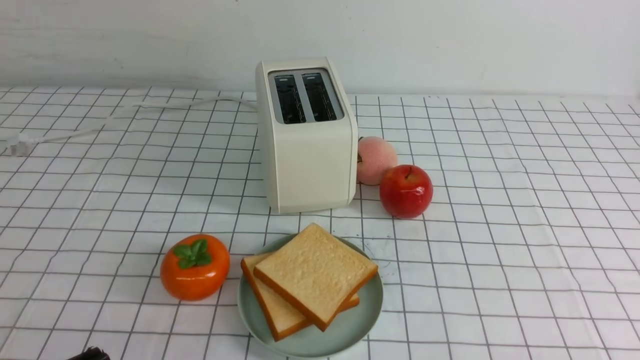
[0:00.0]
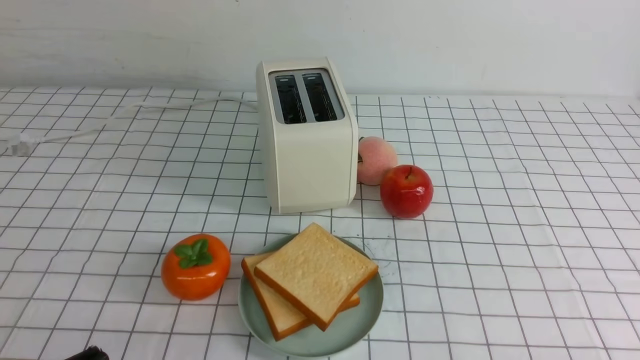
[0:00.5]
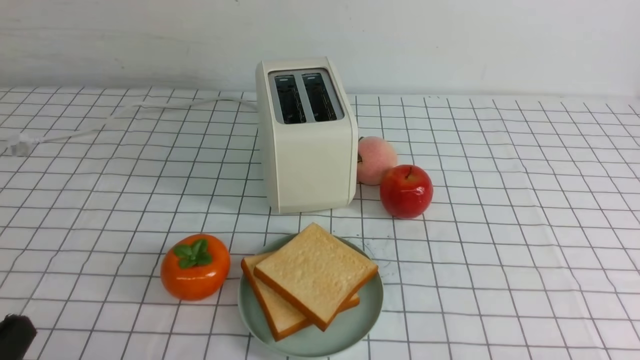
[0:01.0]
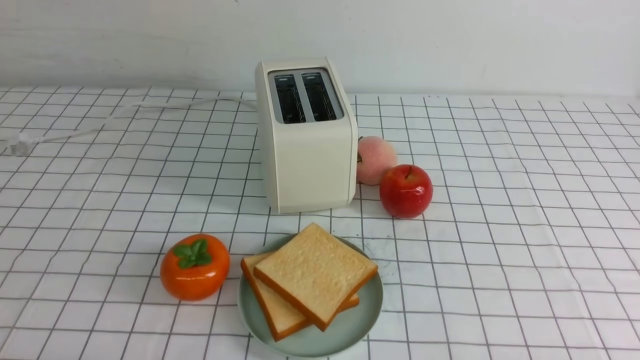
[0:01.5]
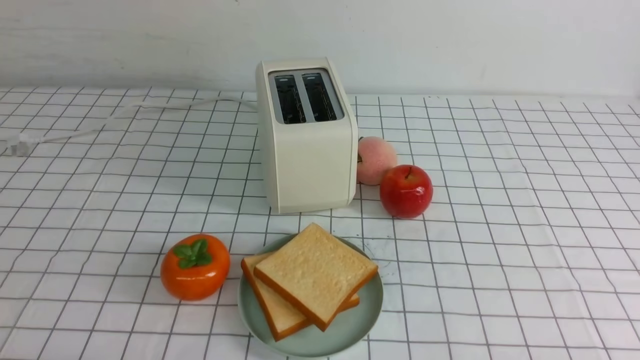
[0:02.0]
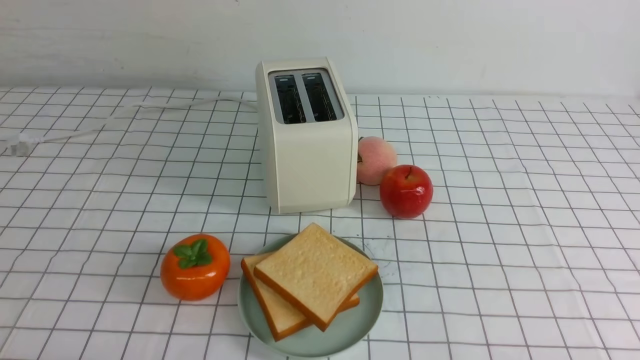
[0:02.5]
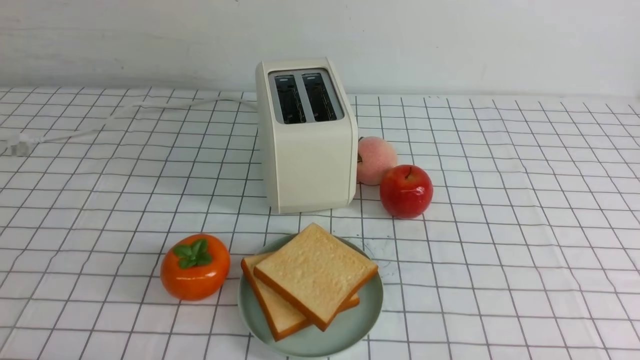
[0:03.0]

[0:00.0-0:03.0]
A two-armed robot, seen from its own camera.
Task of the whole recording: take toasted bread from bread machine on white checkered table place on plate.
0:01.5 to 0:03.0: Both grippers stay put.

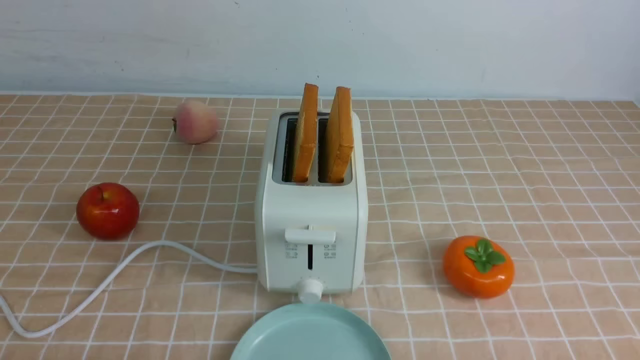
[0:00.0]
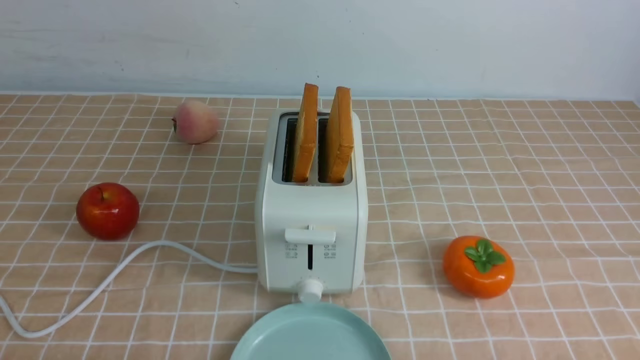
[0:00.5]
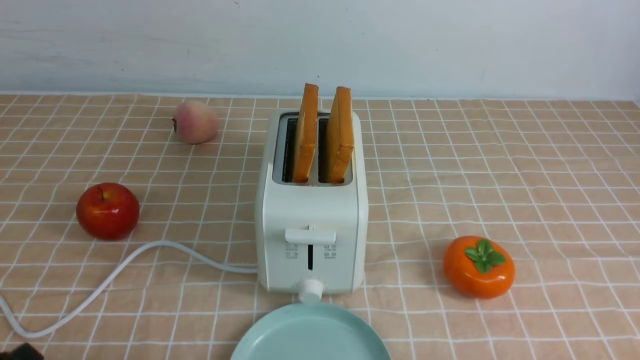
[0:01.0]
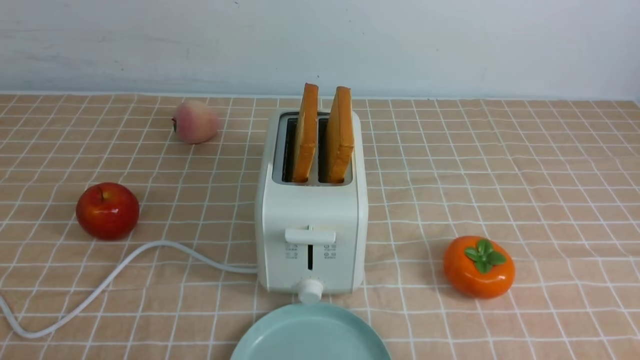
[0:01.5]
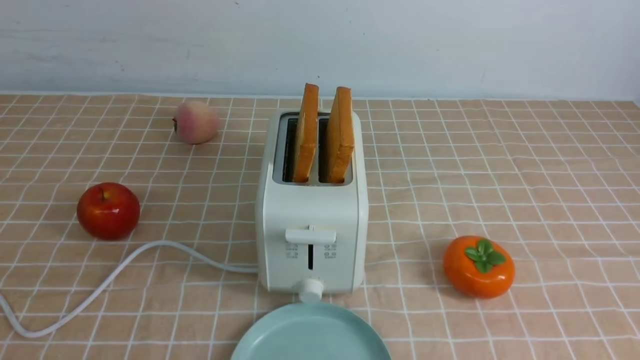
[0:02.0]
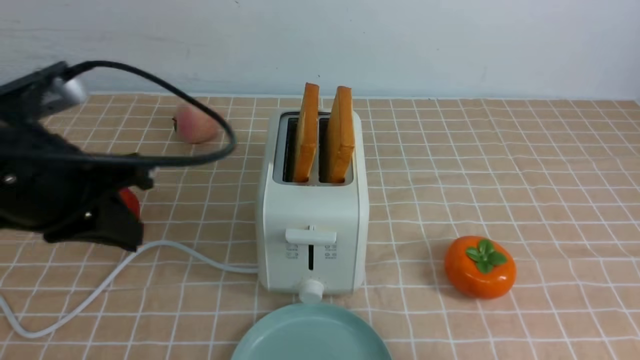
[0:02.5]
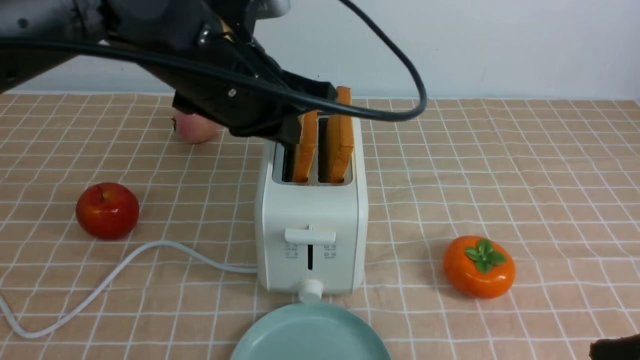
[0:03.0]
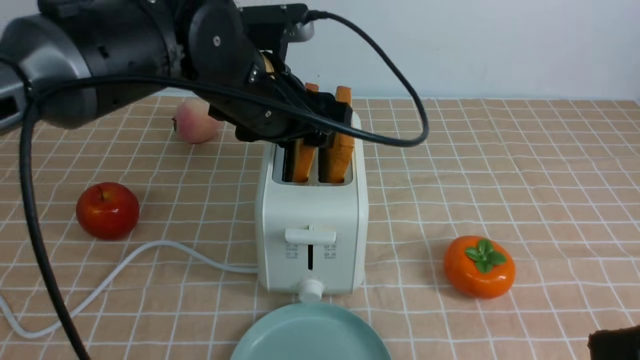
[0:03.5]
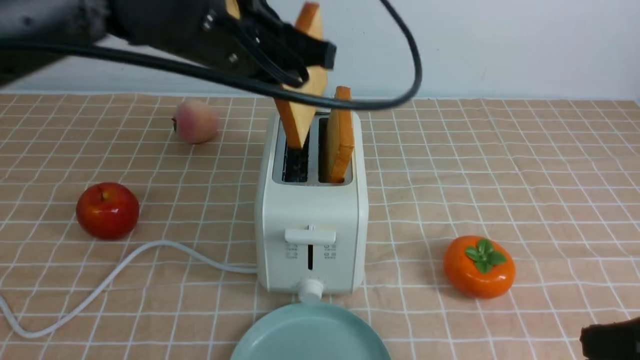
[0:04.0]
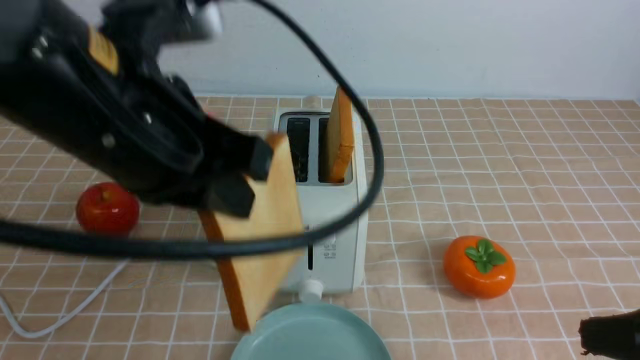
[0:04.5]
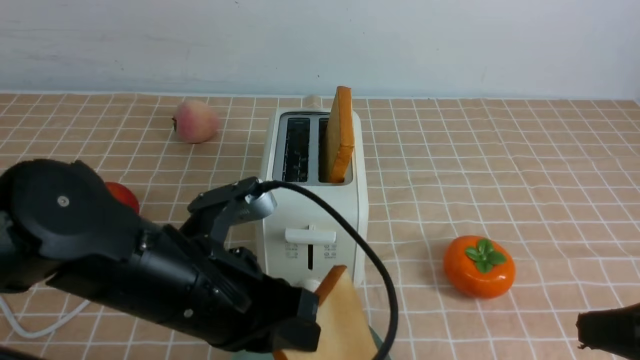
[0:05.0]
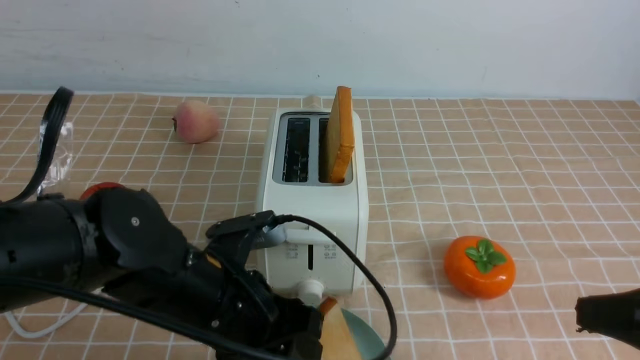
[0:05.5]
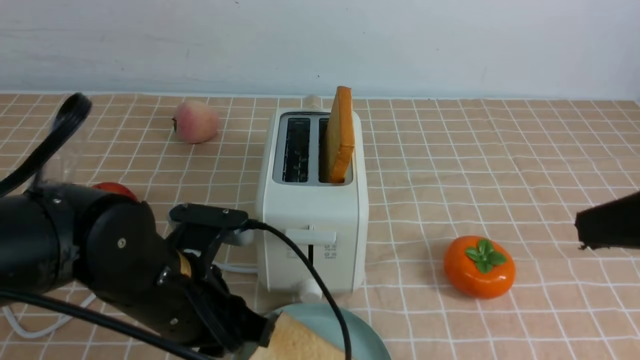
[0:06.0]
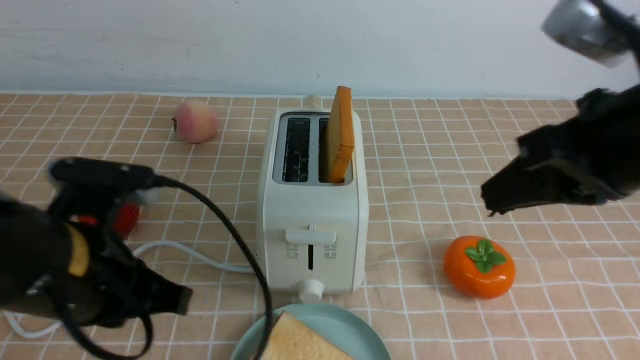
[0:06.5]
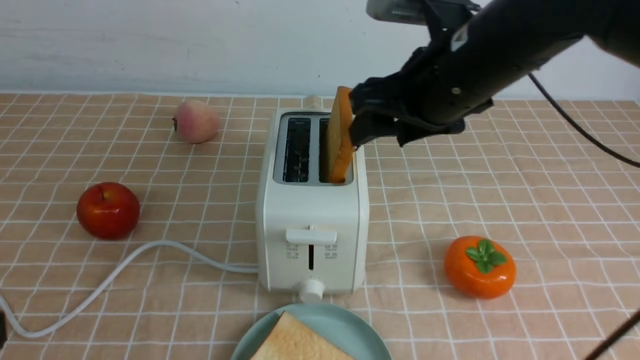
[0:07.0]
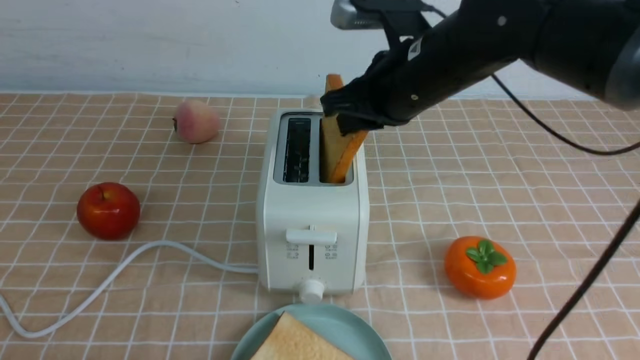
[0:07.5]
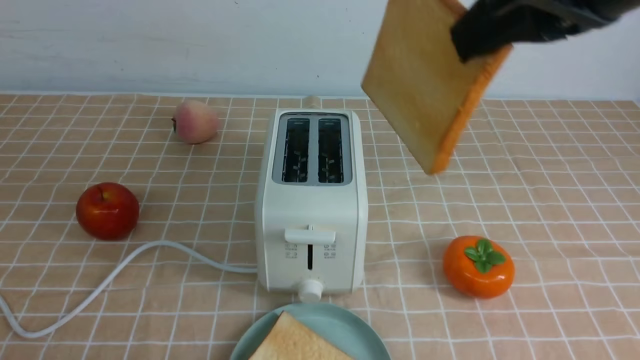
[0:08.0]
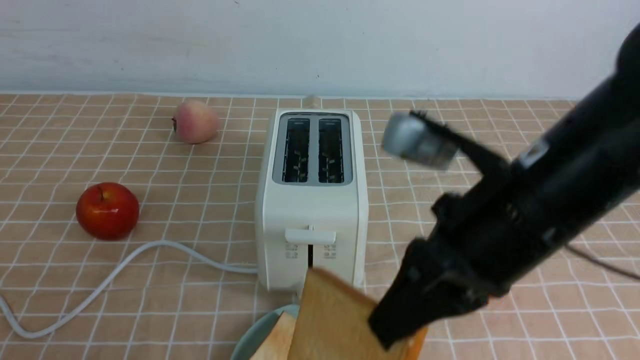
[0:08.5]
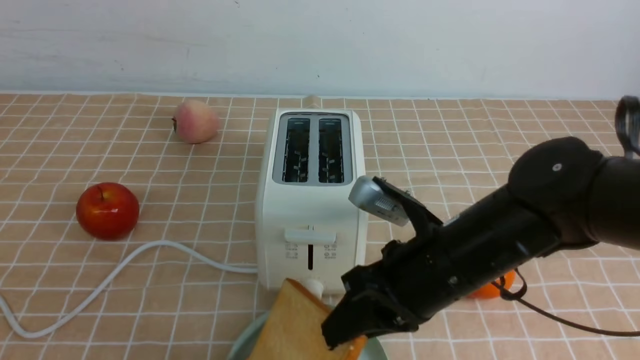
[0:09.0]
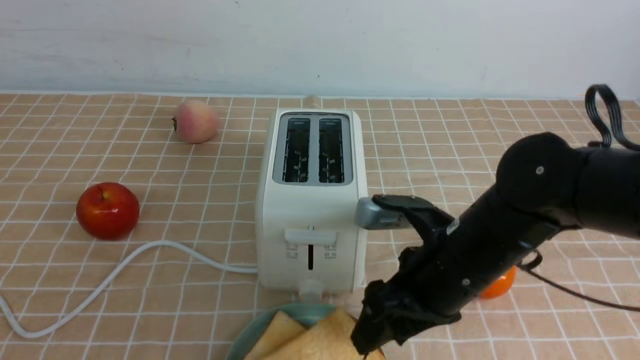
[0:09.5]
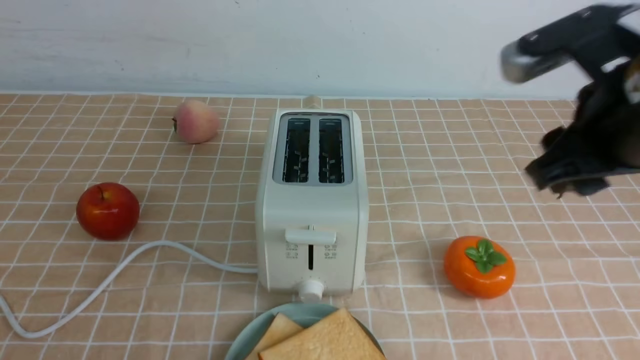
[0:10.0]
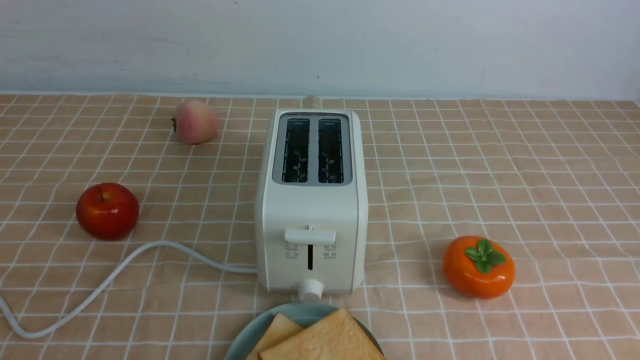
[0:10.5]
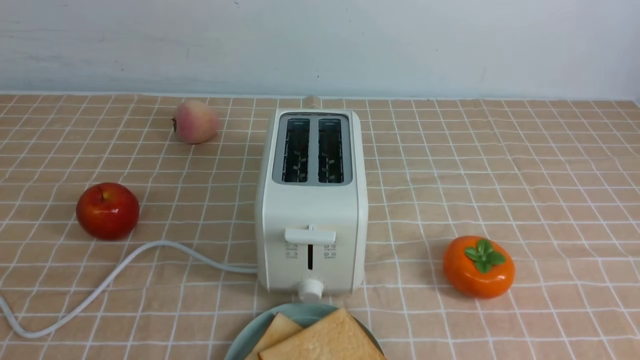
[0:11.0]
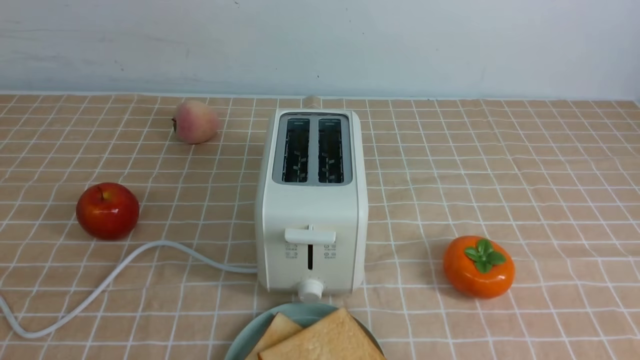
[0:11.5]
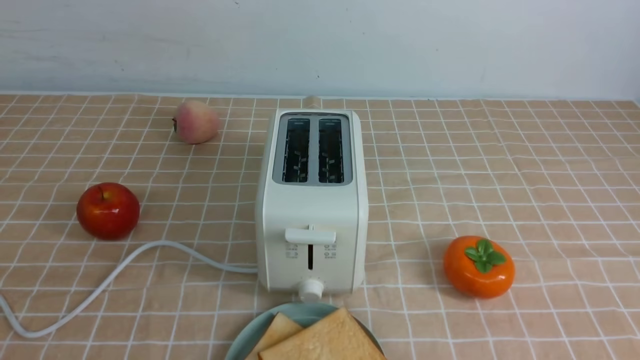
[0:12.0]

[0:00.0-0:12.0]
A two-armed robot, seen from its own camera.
Task of the whole recording: take toasted bread from bread machine on light coffee tablecloth place on plate.
Step, 0:00.0 to 0:03.5: use the left arm to take out a slice of bread.
Step, 0:04.0 to 0:06.0: use the left arm to put a slice of bread into the empty plate.
Step, 0:06.5 to 0:07.5: use the right arm to take out a slice of bread.
Step, 0:08.0 to 0:09.5: use the right arm to put a slice of bread into the plate.
0:02.0 to 0:04.0: The left gripper shifts about 30 cm forward and to the right, and opens, then closes once more. The right gripper moves forward, about 5 cm.
0:04.0 to 0:06.0: The right gripper goes roughly 10 cm upward. The left gripper goes roughly 20 cm downward and backward, and opens, then closes once more.
0:06.0 to 0:08.0: The right gripper is displaced to the left, upward and forward by roughly 15 cm, and opens and closes again, while the left gripper travels backward, to the left and upward by approximately 25 cm, and closes.
0:08.0 to 0:10.0: The right gripper is displaced to the right by roughly 5 cm, travels downward and back again, some 25 cm each way, and opens its fingers.
0:10.0 to 0:12.0: The right gripper travels backward, downward and to the right by some 25 cm, and closes.

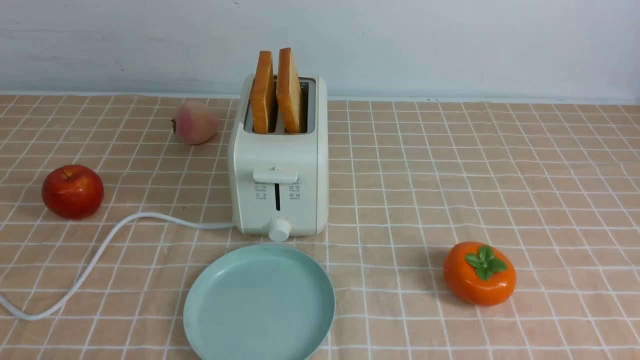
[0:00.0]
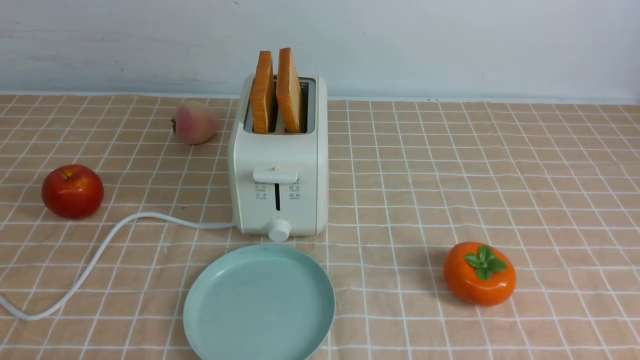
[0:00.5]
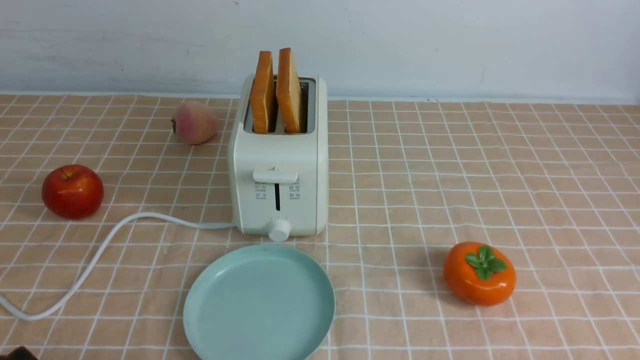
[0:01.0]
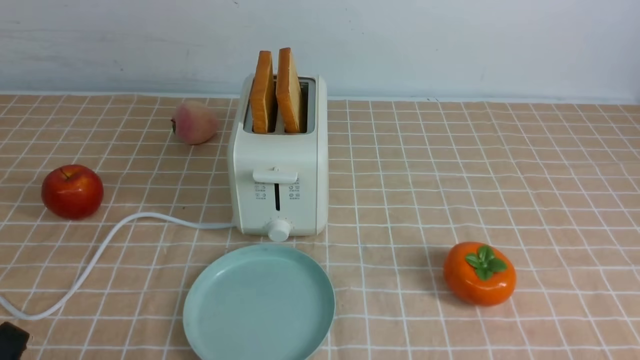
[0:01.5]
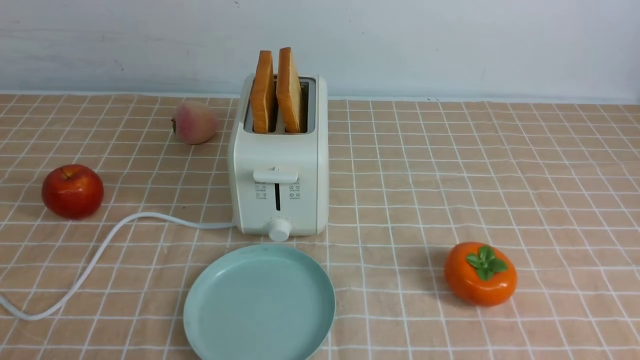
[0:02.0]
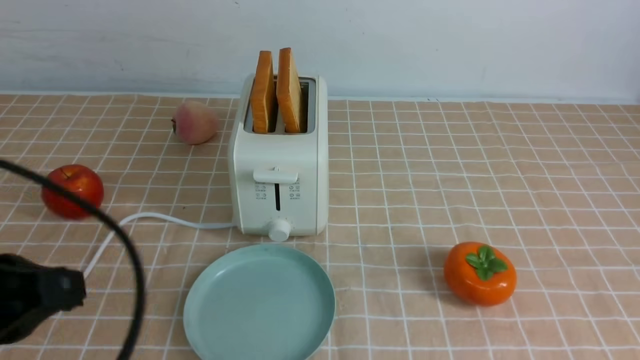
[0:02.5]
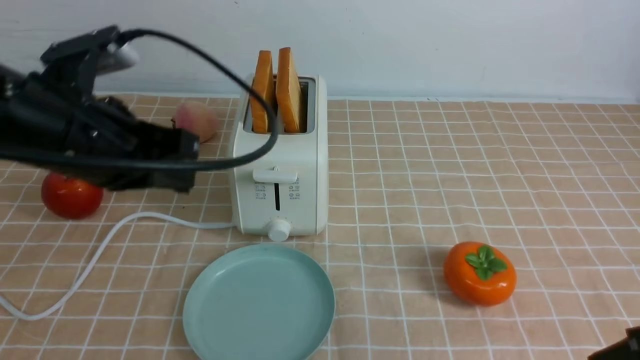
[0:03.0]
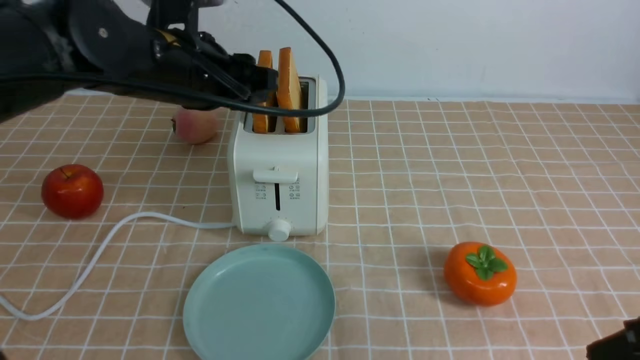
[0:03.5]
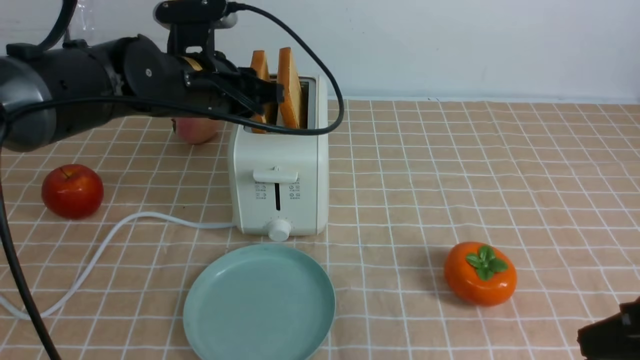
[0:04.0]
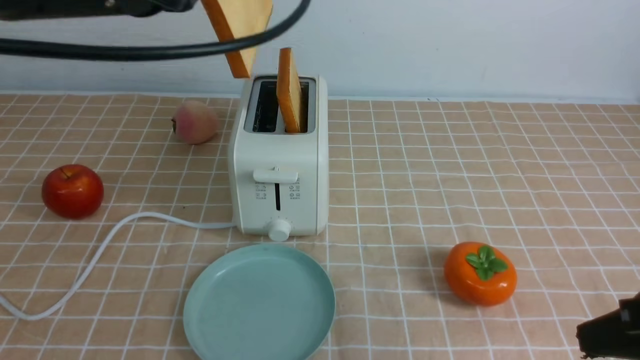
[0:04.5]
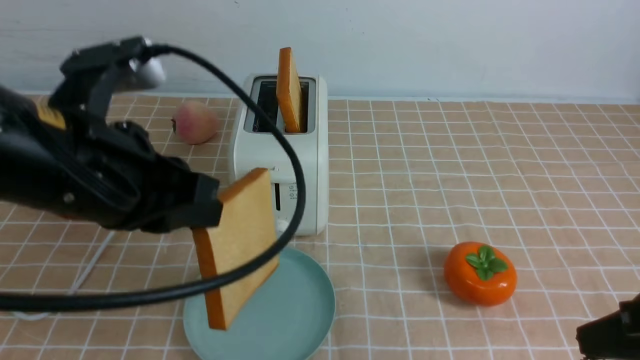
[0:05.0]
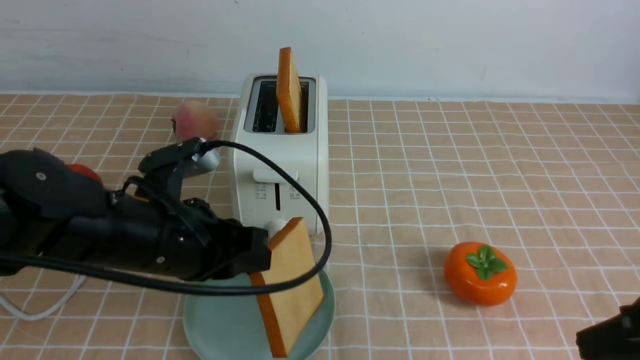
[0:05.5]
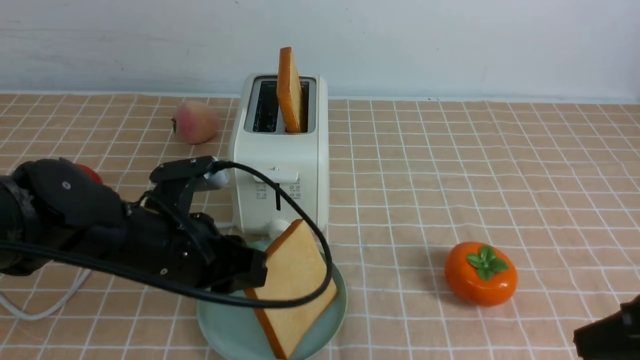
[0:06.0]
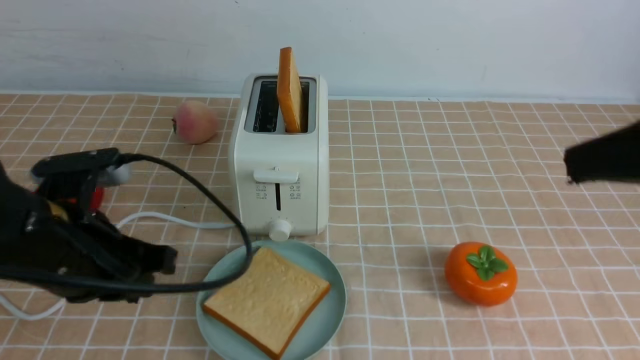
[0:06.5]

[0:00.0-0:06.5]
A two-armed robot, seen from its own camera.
Task of the whole recording: take toasted bread from bread machine on light coffee tablecloth place on plate.
Step, 0:00.0 to 0:04.0: use the left arm to take out a slice of bread.
Step, 0:04.5 to 0:06.0: use the left arm to put a slice of bread into the empty plate.
0:02.0 to 0:04.5: The right gripper is displaced forward and upward by about 10 cm, and closes its fingers. Meanwhile the left gripper shifts approximately 30 cm forward, upward and to the right, and opens, then closes again.
0:04.5 to 0:06.5: The left gripper is displaced downward and backward by some 15 cm; the right gripper is displaced upward by approximately 10 cm.
